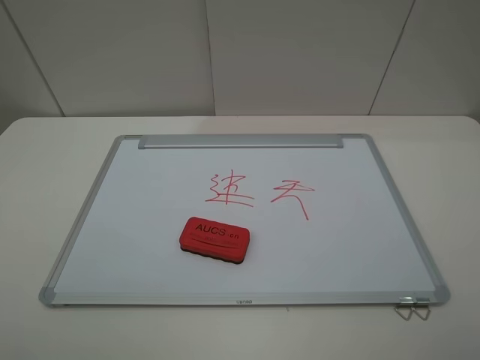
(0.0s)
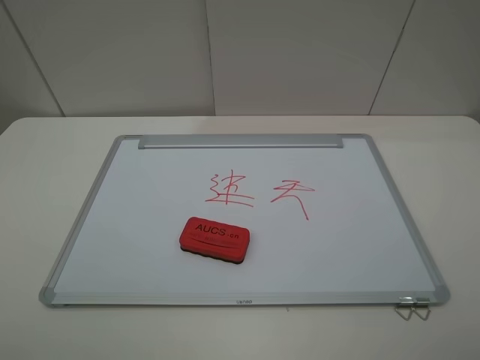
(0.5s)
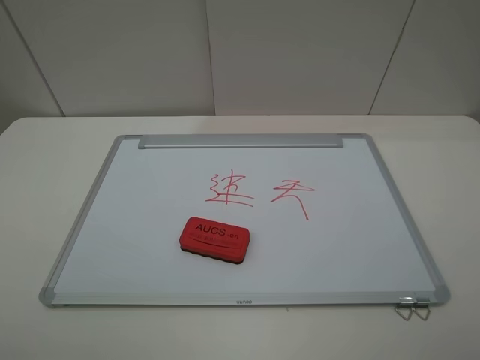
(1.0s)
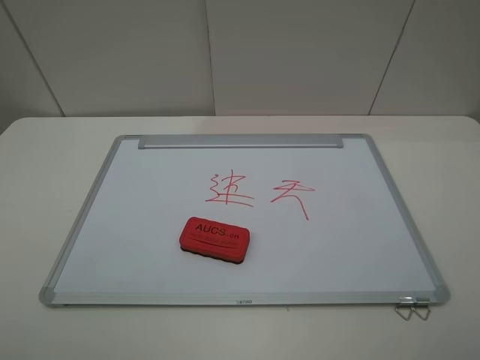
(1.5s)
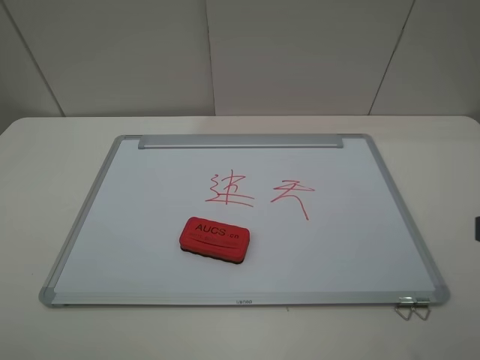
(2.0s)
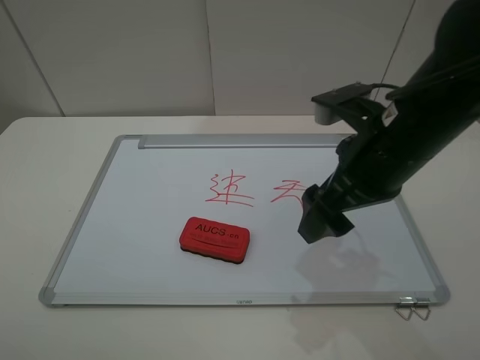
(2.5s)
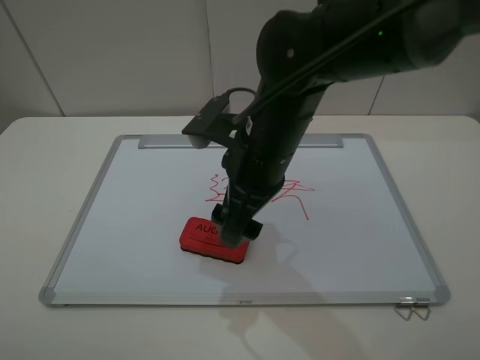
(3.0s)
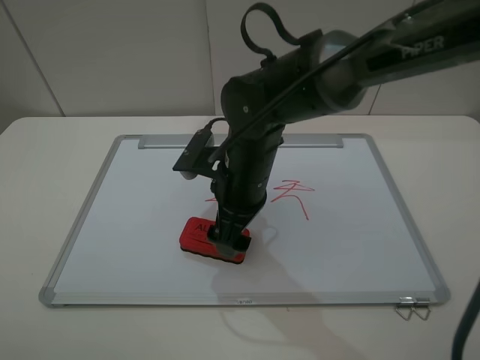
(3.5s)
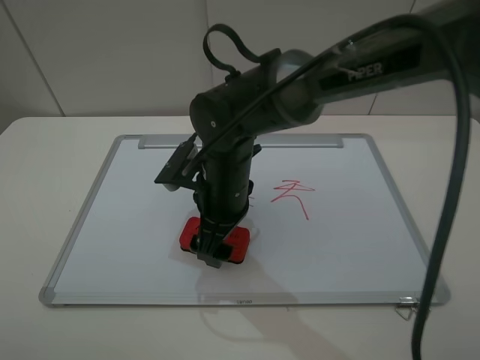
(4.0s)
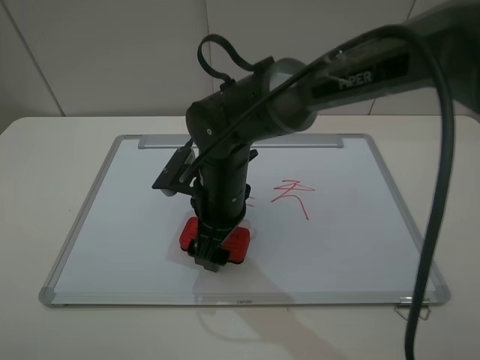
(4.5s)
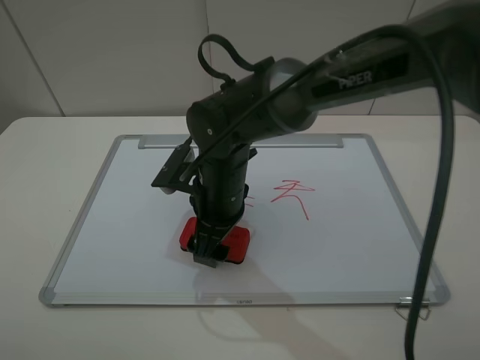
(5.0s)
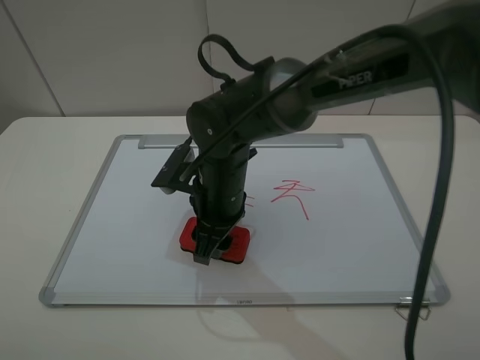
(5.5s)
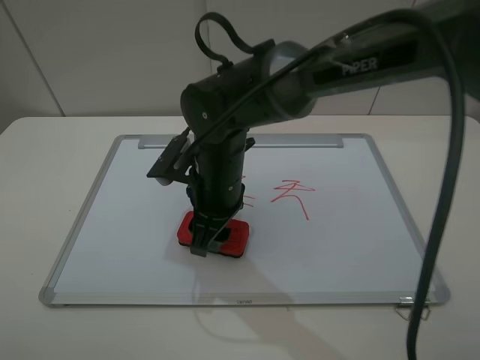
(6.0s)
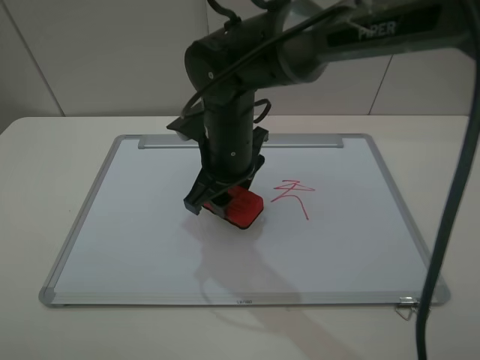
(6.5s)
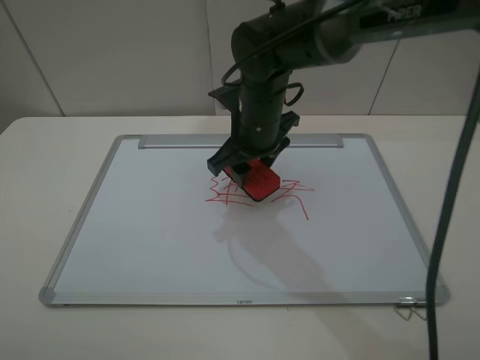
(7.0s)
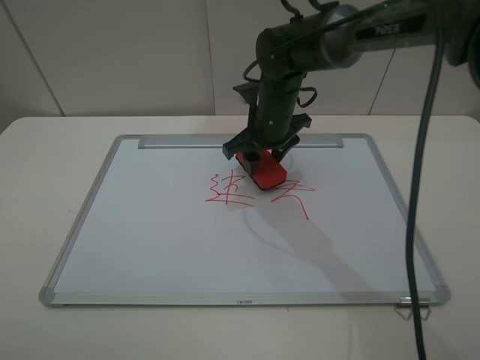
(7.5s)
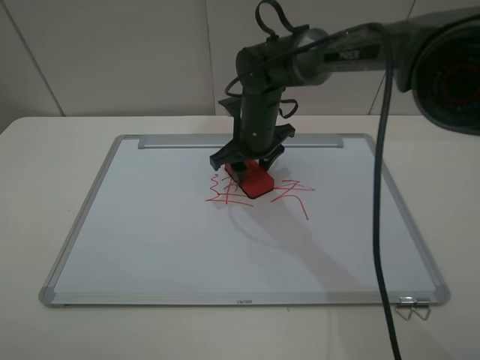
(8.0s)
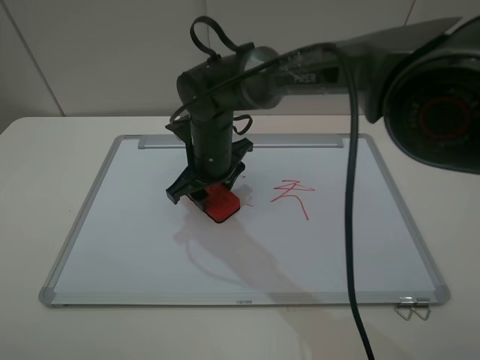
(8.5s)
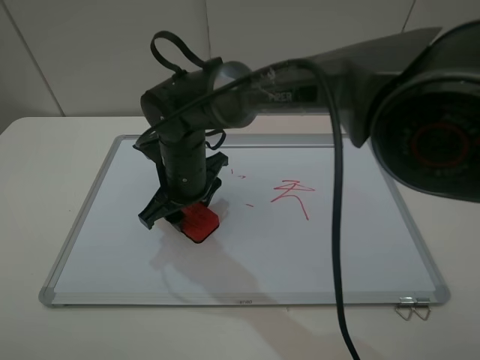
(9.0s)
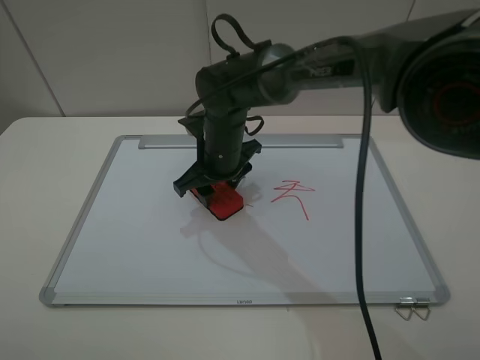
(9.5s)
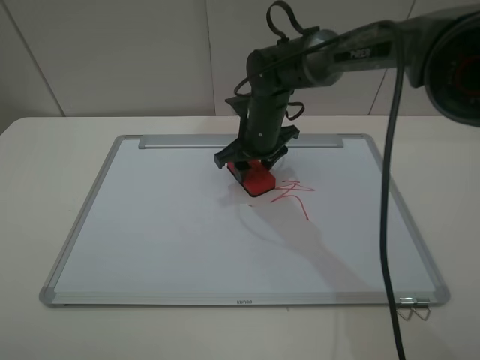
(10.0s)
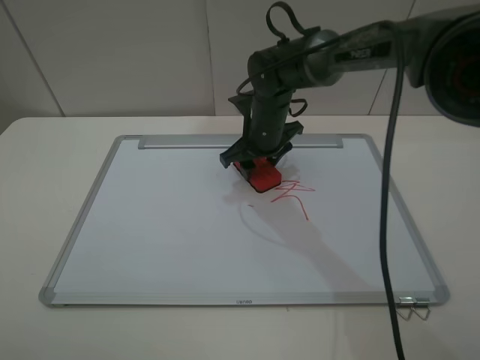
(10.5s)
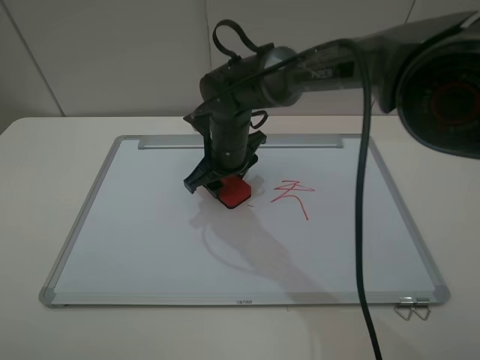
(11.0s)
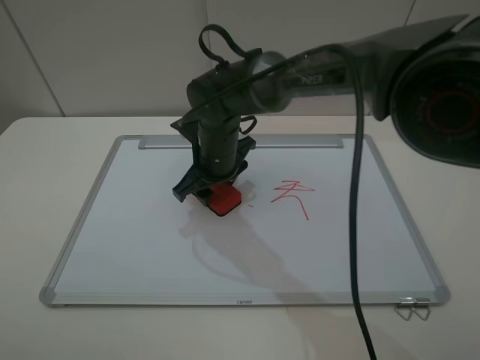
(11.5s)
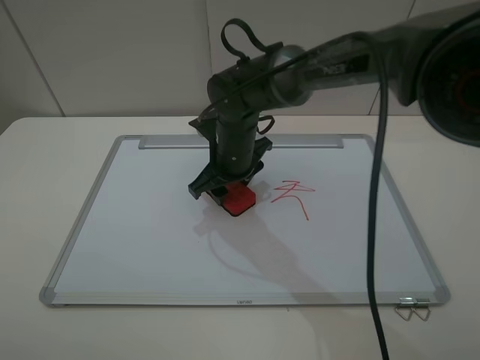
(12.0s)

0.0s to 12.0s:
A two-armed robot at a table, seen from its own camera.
Step, 0.0s to 5.0s: Grasp the eraser with the right gripper.
2.0s to 4.0s: The right gripper shifts roughly 40 cm to the left, forward and downward.
4.0s to 6.0s: The right gripper closes up.
6.0s to 8.0s: The right gripper travels forward and to the right by about 15 cm.
8.0s to 10.0s: The right gripper moves approximately 10 cm to the left and comes back.
10.0s to 12.0s: The right gripper shifts by about 5 cm.

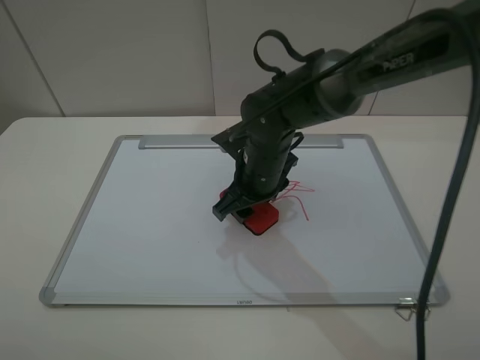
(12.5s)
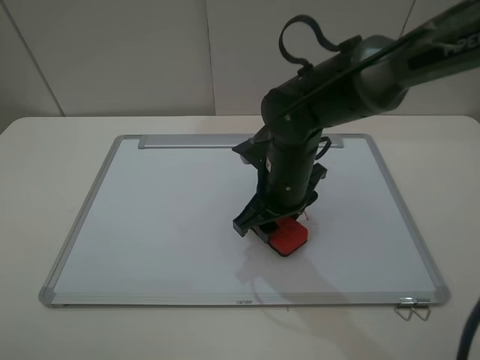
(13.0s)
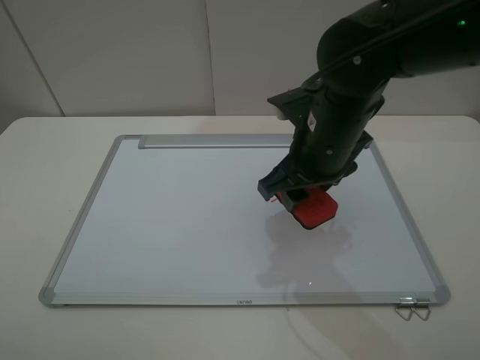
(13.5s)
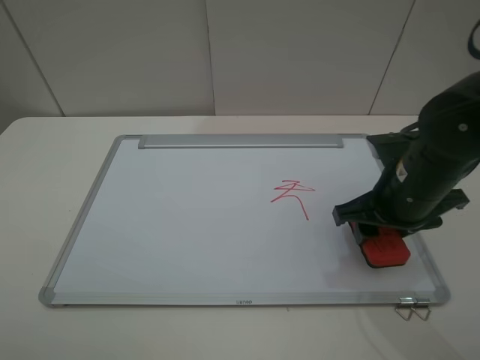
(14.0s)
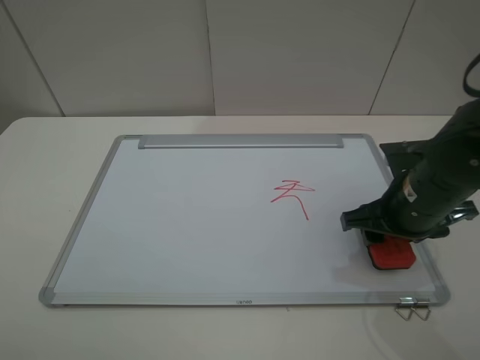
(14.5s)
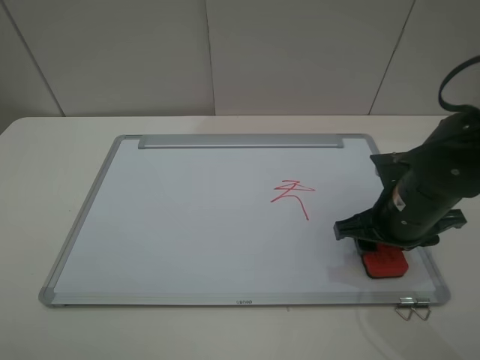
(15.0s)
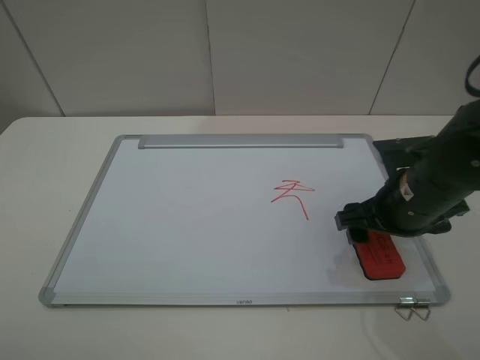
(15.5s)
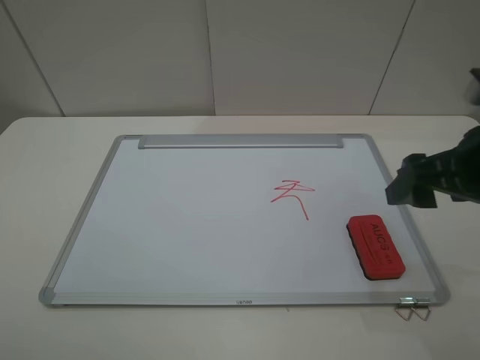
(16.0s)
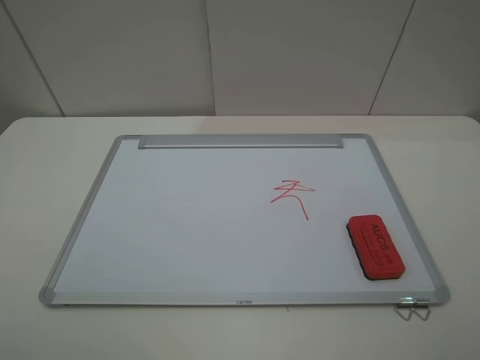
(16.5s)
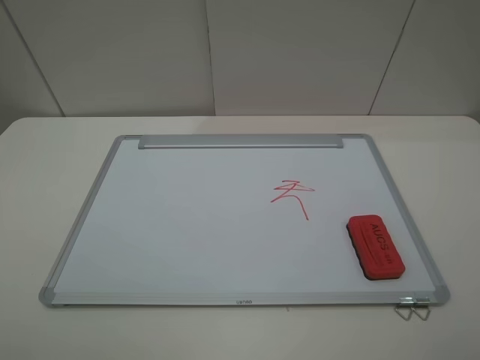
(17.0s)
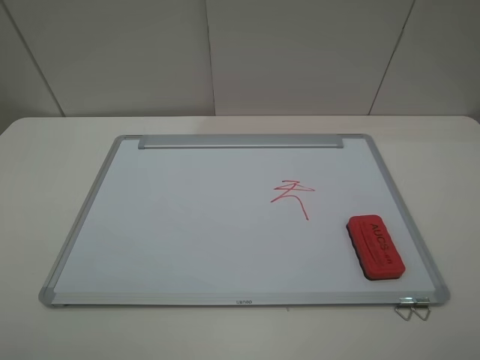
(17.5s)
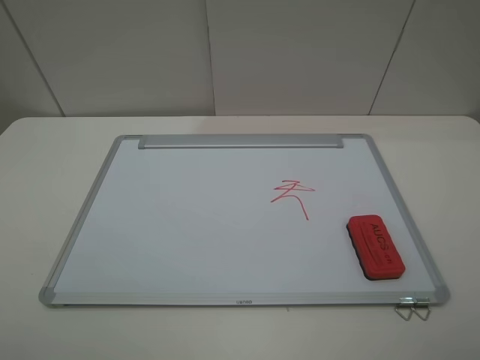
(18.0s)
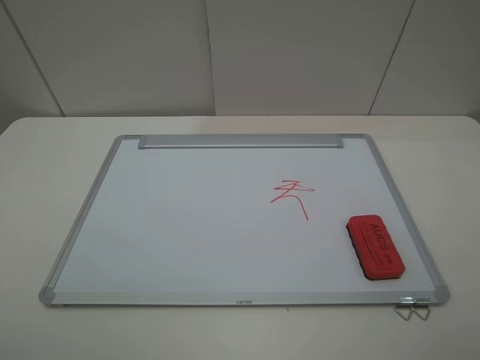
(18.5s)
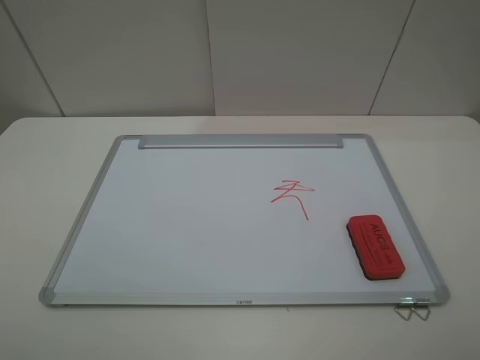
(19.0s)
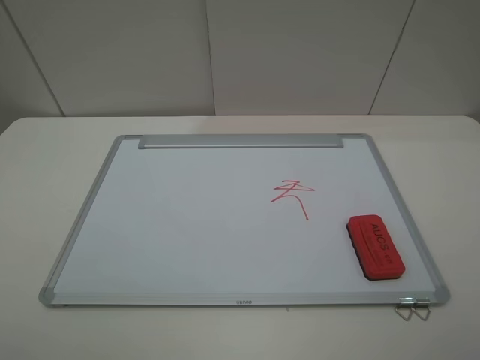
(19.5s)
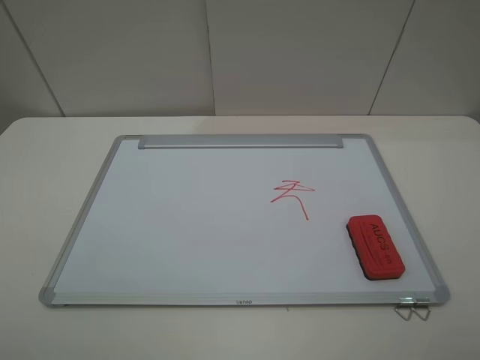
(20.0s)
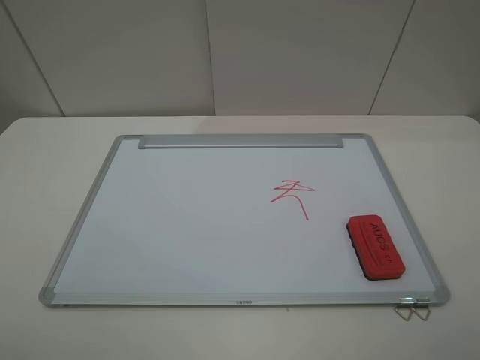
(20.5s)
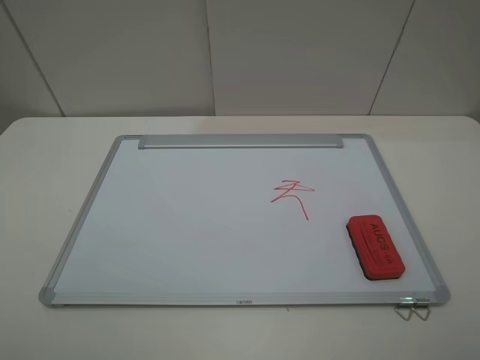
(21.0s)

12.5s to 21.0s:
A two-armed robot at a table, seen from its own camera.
Step, 13.5s to 15.5s: Place the eraser with the right gripper.
12.5s to 14.5s: The right gripper is displaced to the right and backward by roughly 20 cm.
14.5s to 16.5s: The right gripper goes about 25 cm upward and backward, and opens up.
19.0s to 21.0s: Both grippers stay put.
